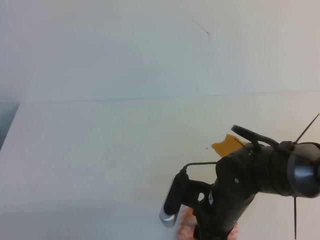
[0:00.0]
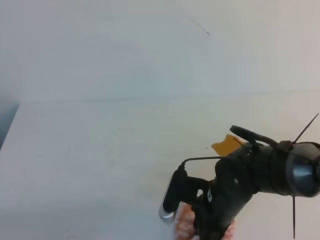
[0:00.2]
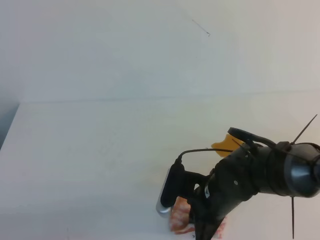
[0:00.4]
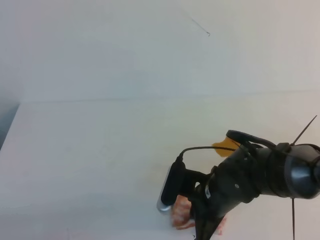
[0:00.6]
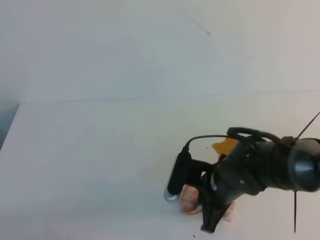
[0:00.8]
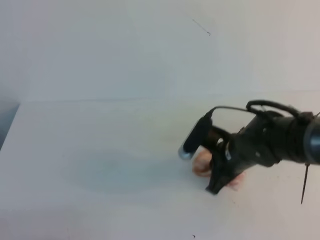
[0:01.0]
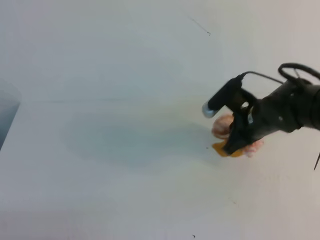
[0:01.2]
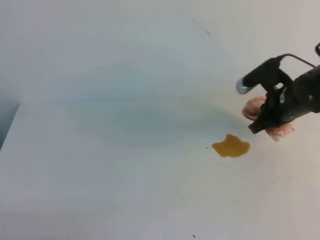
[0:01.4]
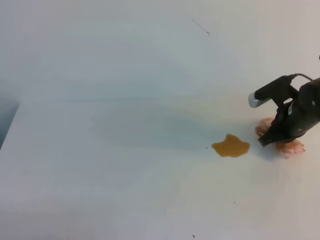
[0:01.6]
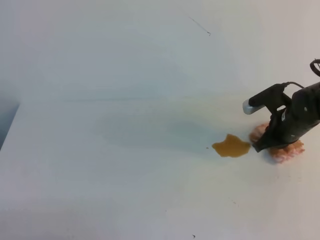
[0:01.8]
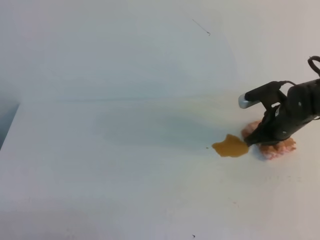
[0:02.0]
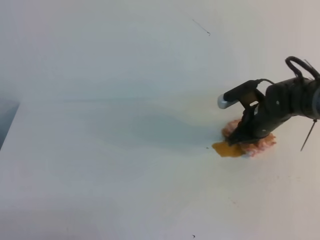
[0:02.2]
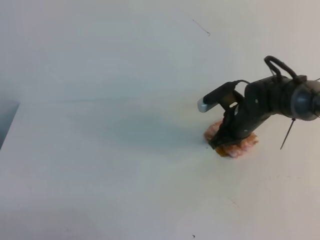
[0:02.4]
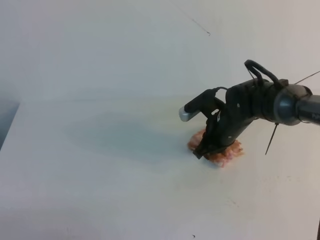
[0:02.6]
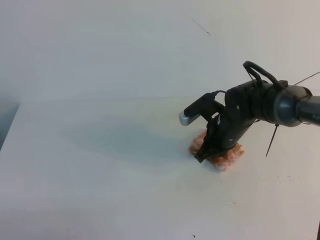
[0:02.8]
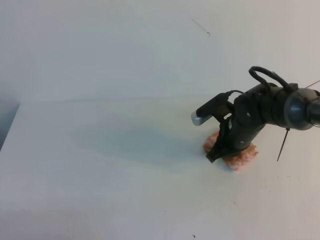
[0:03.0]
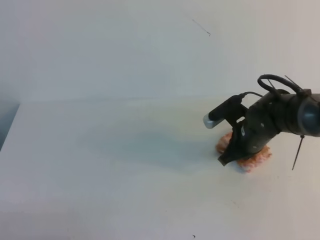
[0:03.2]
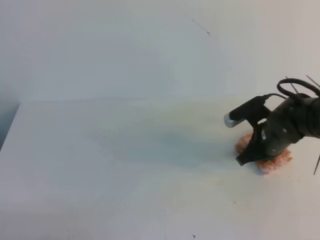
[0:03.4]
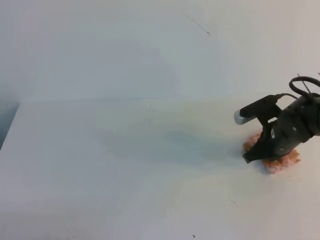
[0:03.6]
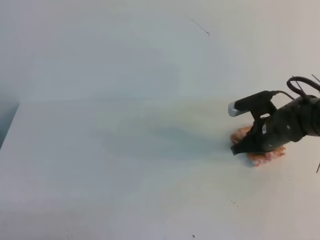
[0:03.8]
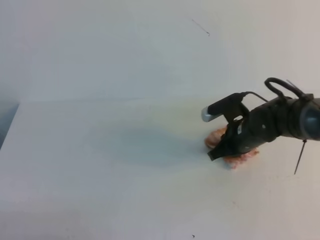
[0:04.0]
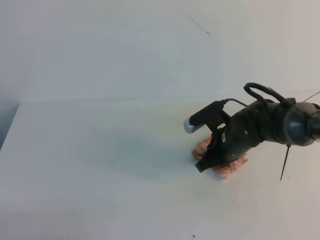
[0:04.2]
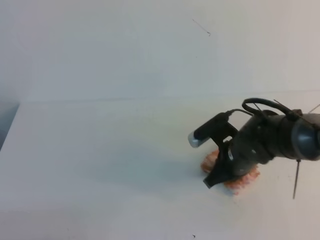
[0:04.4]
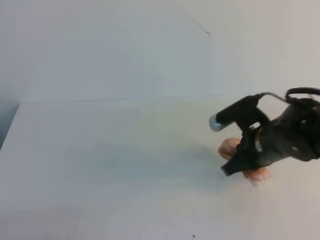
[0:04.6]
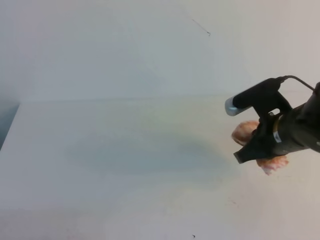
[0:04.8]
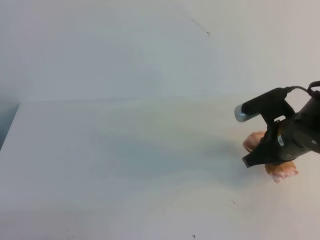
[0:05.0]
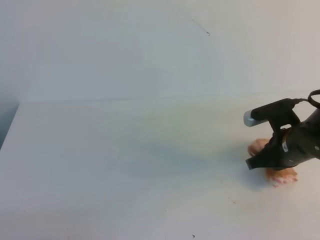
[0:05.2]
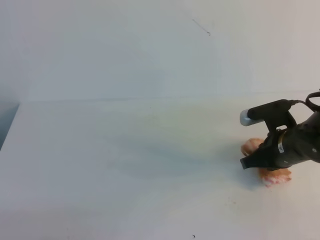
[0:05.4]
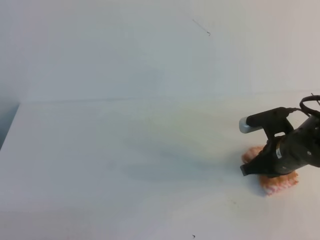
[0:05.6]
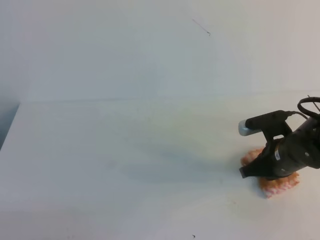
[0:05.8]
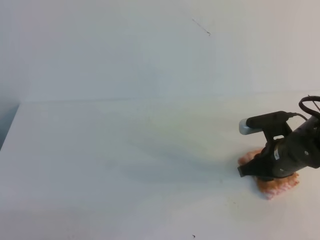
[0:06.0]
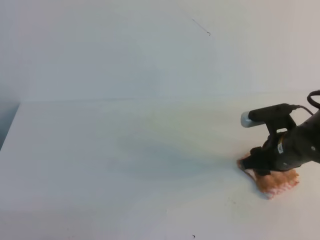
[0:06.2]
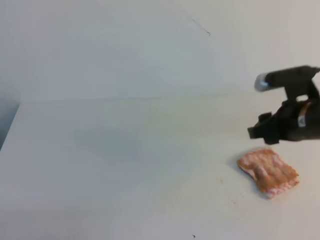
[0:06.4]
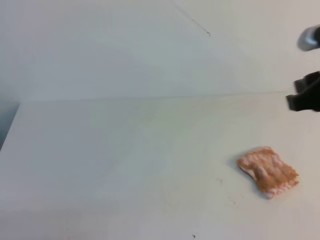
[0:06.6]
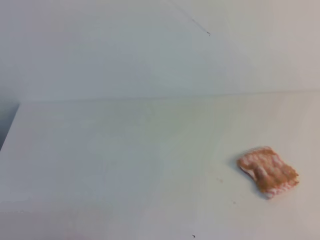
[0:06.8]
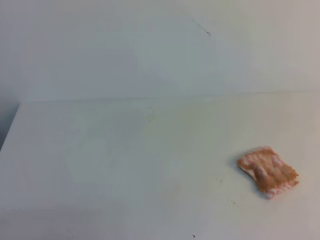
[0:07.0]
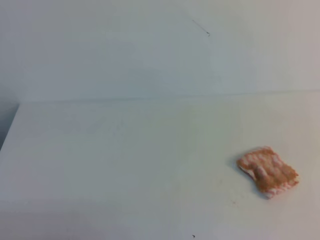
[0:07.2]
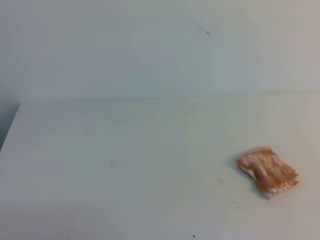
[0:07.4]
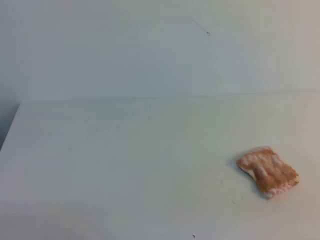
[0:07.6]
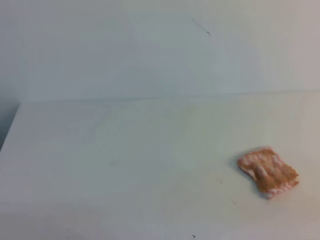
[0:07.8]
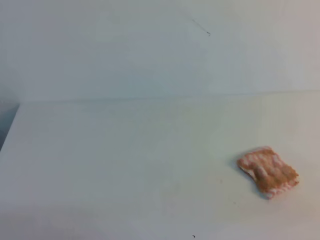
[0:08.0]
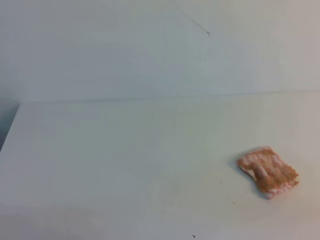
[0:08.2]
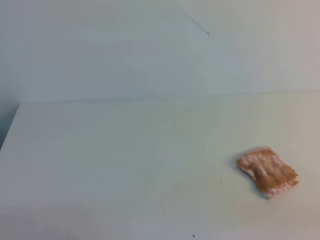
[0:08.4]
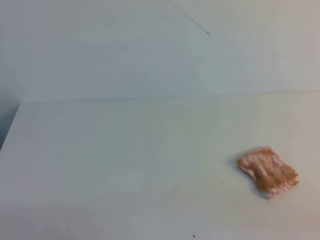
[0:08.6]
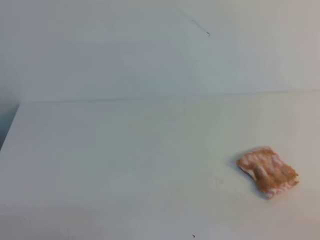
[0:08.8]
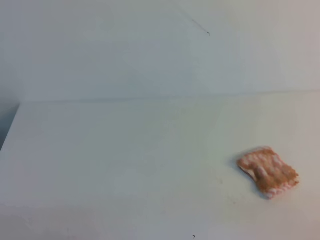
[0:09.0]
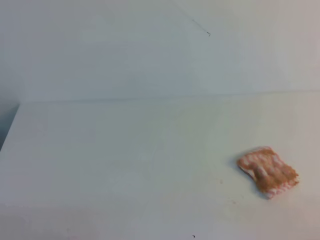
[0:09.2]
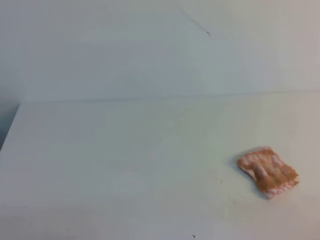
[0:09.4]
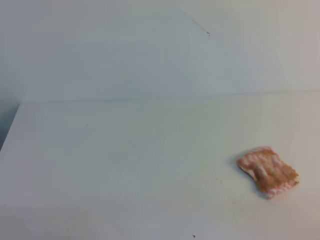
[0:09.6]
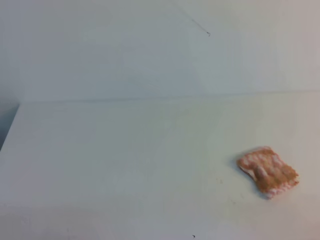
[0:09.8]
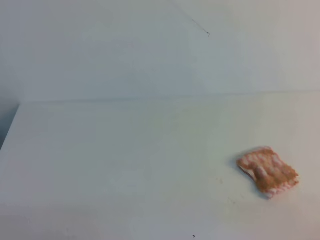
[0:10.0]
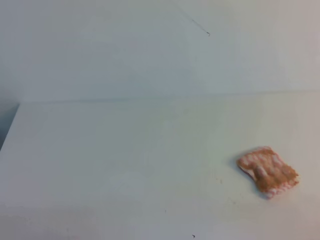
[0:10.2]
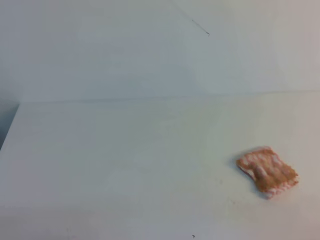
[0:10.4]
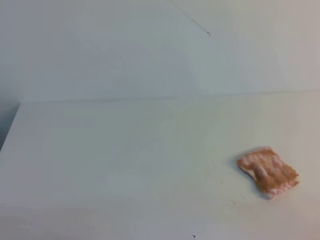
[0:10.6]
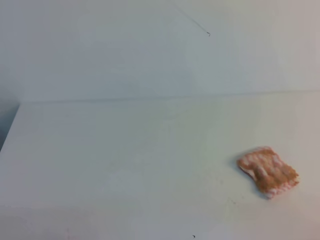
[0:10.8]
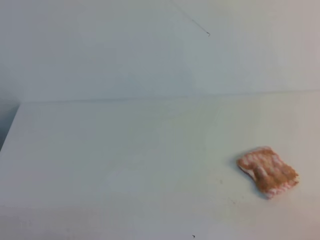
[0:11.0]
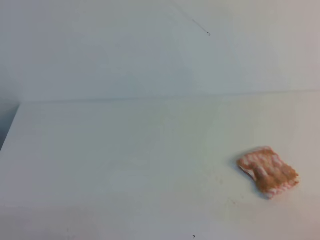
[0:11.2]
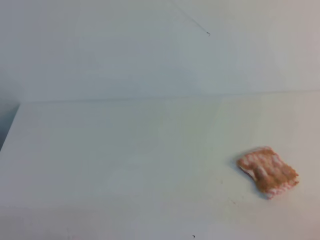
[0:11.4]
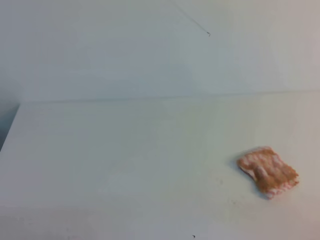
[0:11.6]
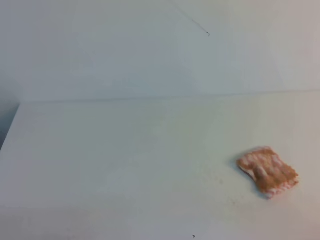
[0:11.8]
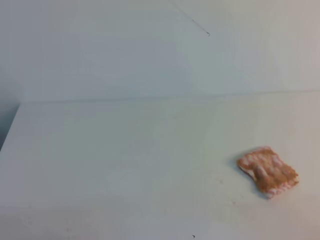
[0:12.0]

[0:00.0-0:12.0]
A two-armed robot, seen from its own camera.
0:00.0 to 0:01.6: The right gripper is displaced forward and to the right by some 20 cm, and closes.
0:01.6 to 0:03.0: The right gripper goes about 10 cm to the left.
0:03.0 to 0:04.4: The right gripper shifts approximately 5 cm backward.
0:04.4 to 0:06.0: The right gripper is displaced to the right by some 5 cm, and opens.
0:06.0 to 0:07.6: The right gripper is displaced backward, upward and to the right by about 30 cm, and closes.
0:10.4 to 0:12.0: The two grippers keep their place.
